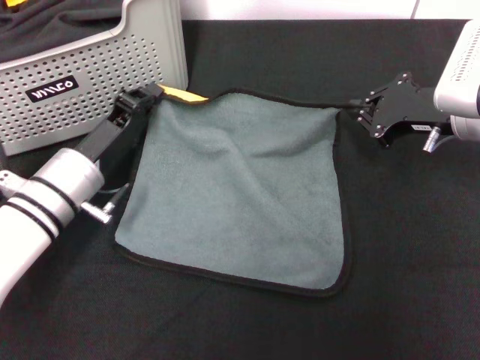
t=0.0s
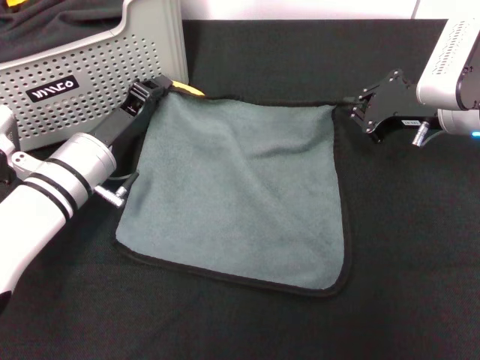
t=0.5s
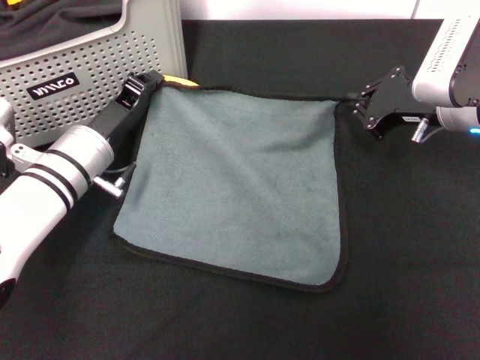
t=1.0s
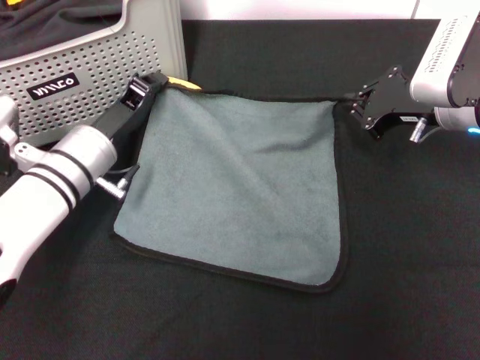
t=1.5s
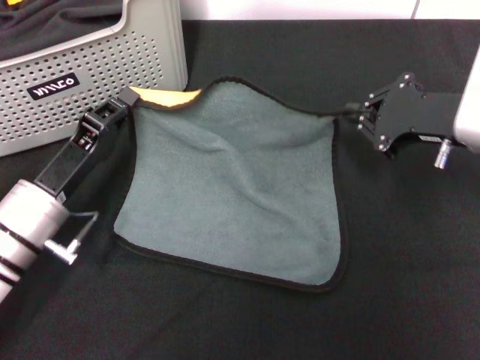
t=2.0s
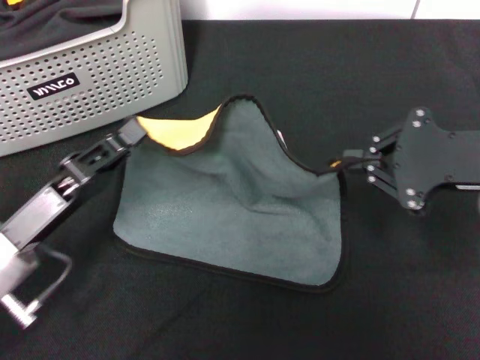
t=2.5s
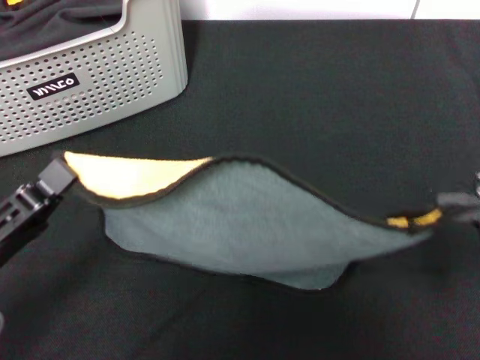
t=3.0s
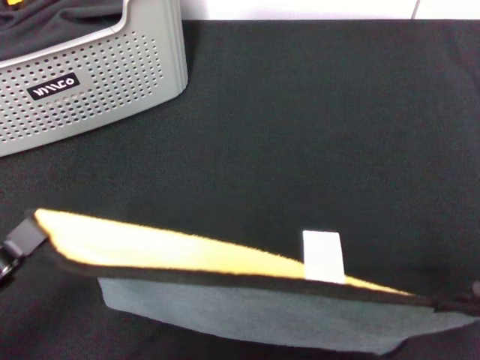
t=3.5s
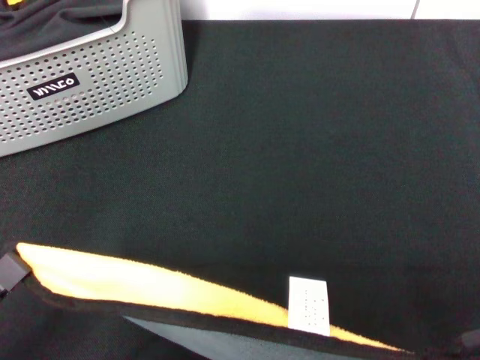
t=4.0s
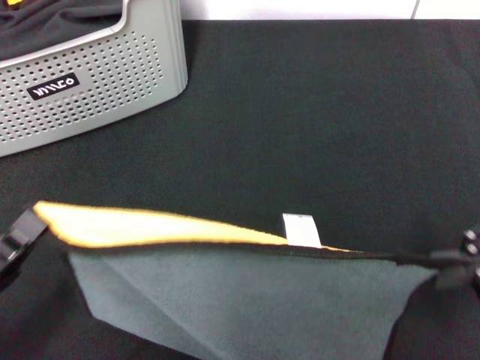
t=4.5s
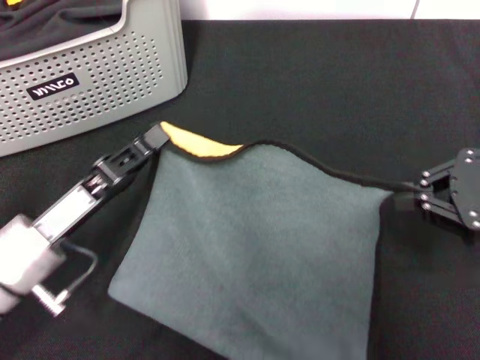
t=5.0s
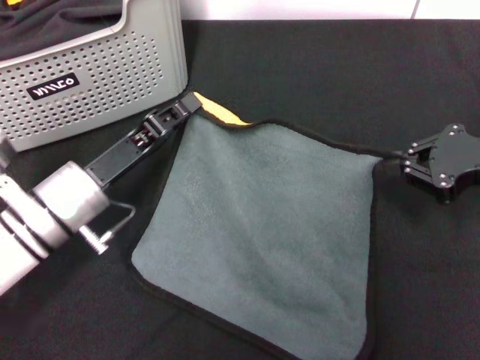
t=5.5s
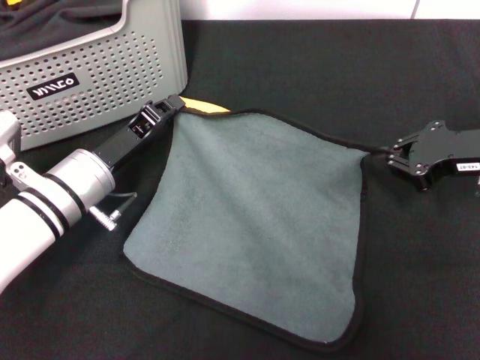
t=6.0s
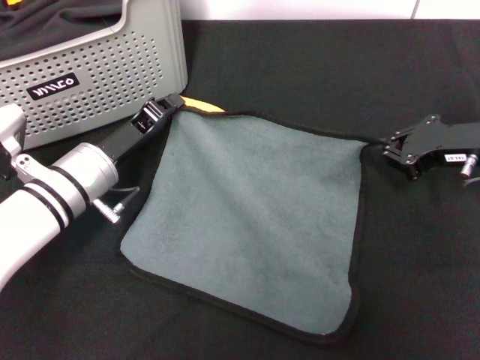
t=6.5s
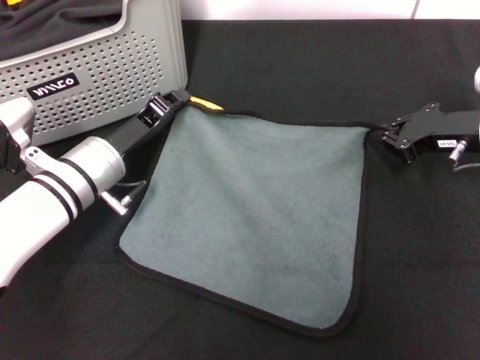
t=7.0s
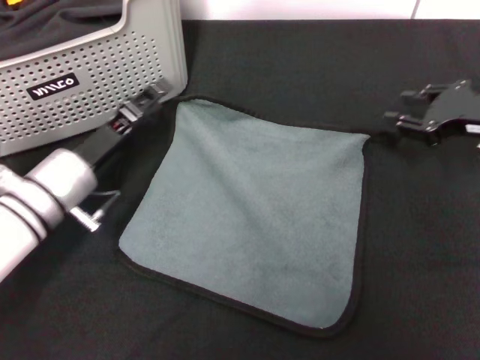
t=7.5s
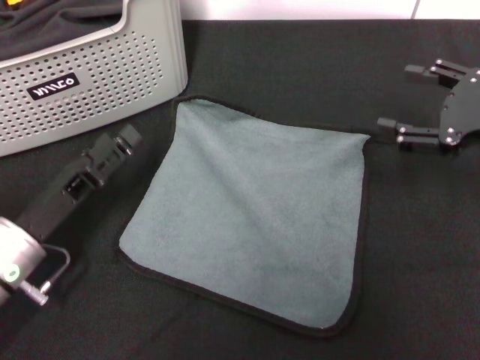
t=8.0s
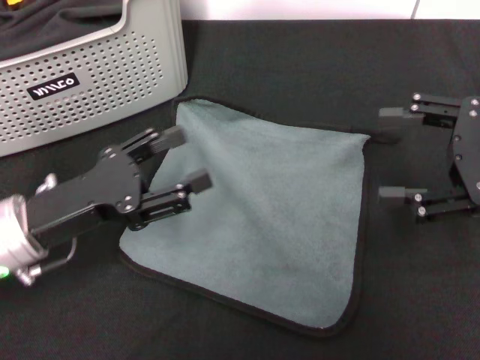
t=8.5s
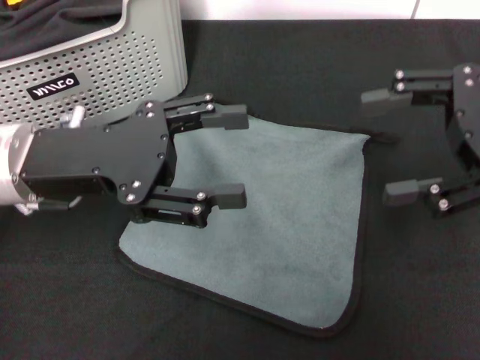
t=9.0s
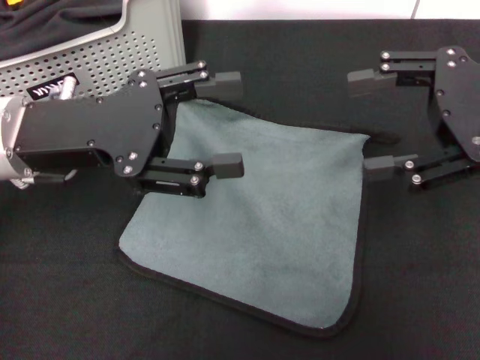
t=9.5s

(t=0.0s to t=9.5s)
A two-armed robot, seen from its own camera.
Task of the whole recording: pick up the towel from the storage box and lay it flat on the black tablecloth.
Step, t=0.0s - t=7.0s: Spread the towel flat with the right gripper.
t=0.0s - t=2.0s: The left gripper changes place by some 5 cm.
t=2.0s - t=4.0s: The right gripper travels backward, upward and to the right by approximately 20 cm; the left gripper travels backward by about 20 cm.
t=4.0s - t=5.5s: The right gripper moves forward and downward, about 15 cm. Meanwhile the left gripper moves forward and to the right, some 25 cm.
t=5.5s - t=7.5s: The left gripper opens its fingers.
t=7.5s - t=9.5s: The left gripper heads upward, covering roughly 15 cm, and opens; the right gripper moves upward and backward, some 10 cm, and opens its fingers.
